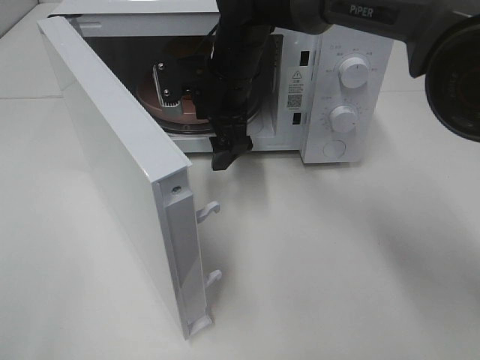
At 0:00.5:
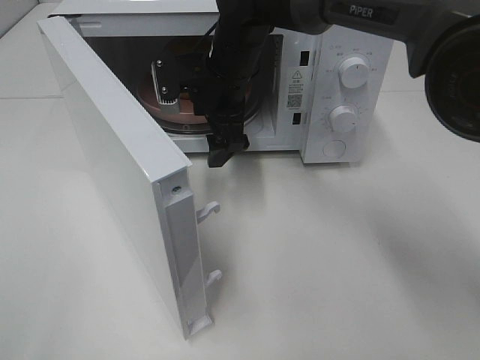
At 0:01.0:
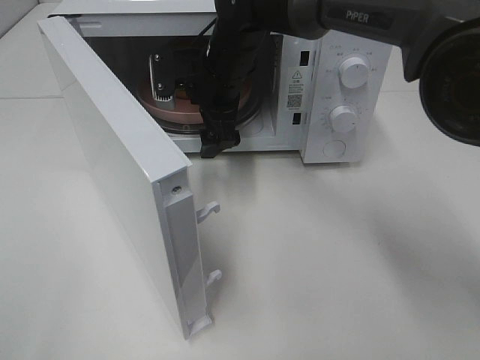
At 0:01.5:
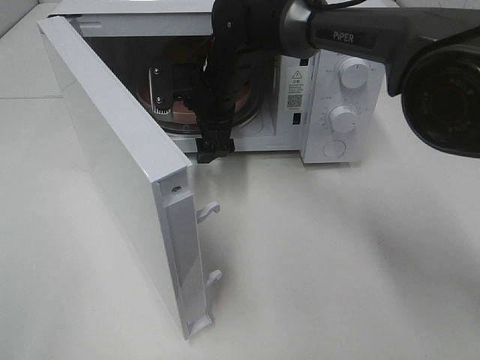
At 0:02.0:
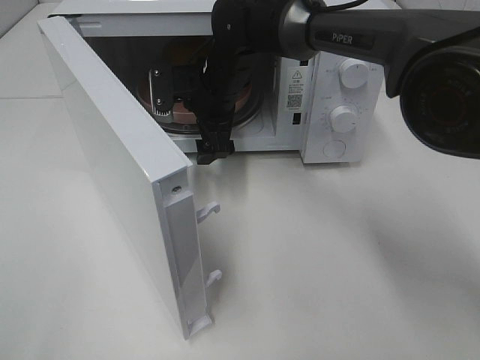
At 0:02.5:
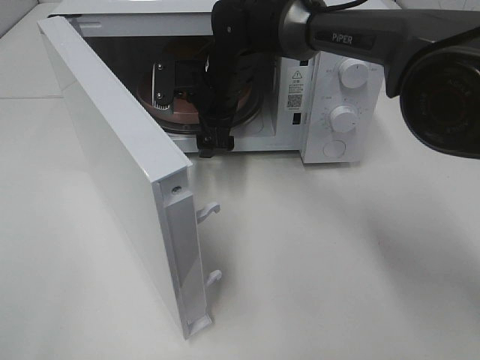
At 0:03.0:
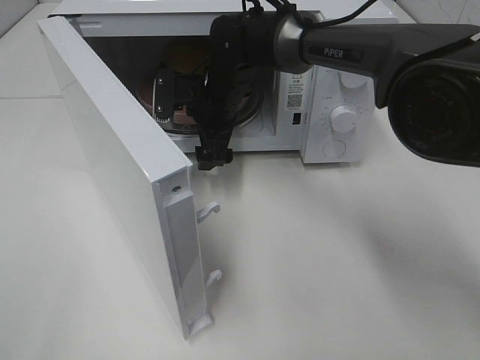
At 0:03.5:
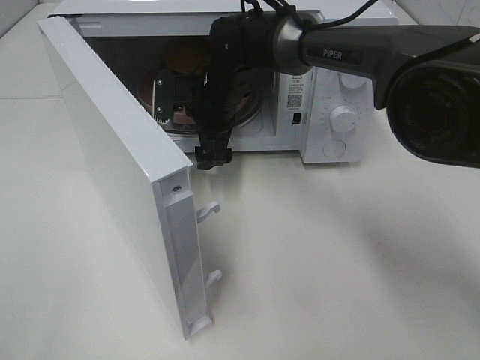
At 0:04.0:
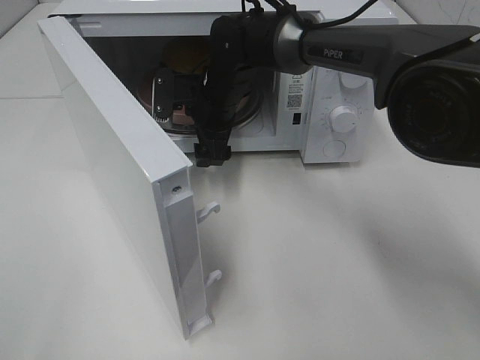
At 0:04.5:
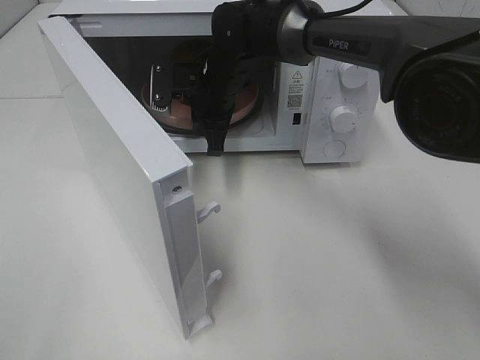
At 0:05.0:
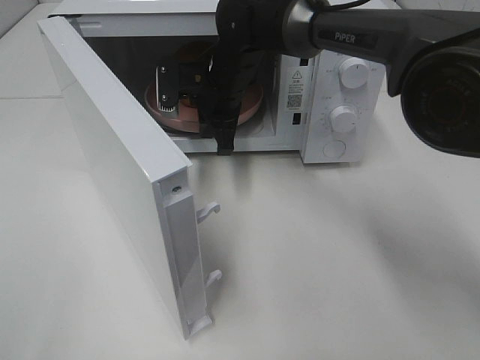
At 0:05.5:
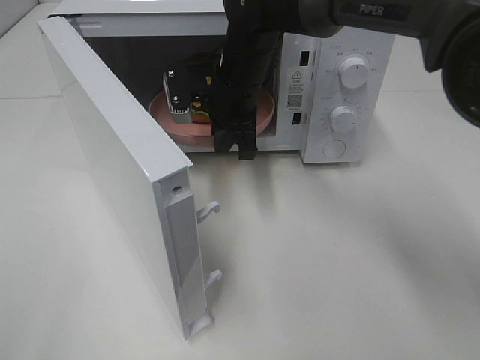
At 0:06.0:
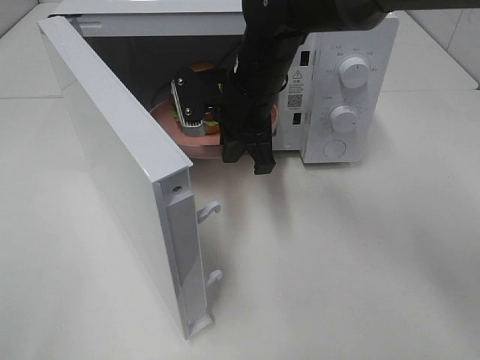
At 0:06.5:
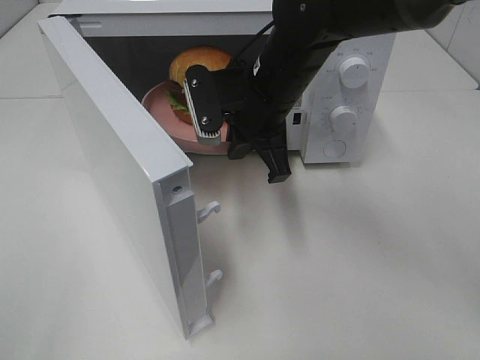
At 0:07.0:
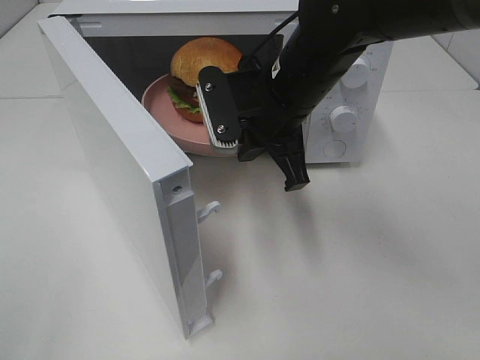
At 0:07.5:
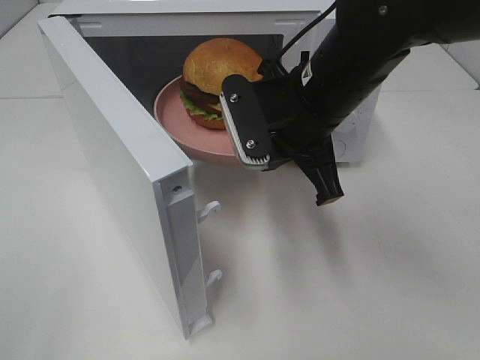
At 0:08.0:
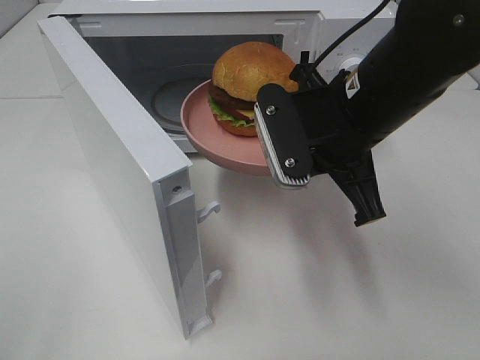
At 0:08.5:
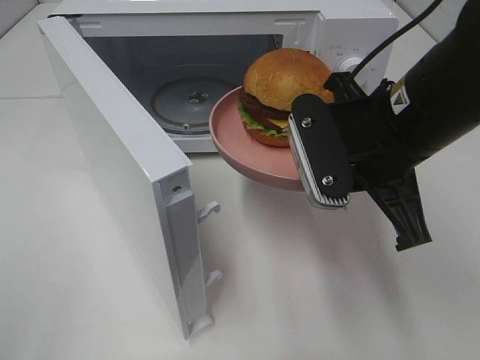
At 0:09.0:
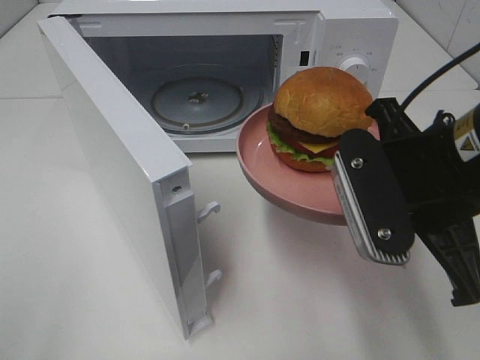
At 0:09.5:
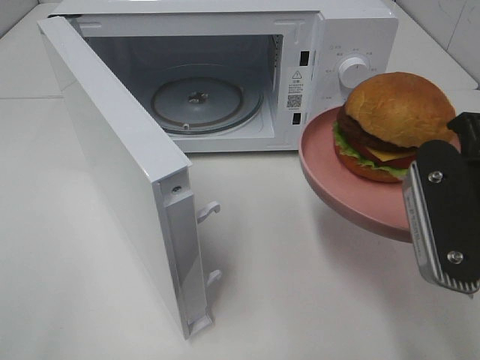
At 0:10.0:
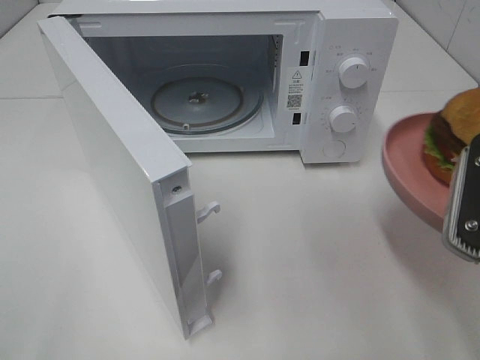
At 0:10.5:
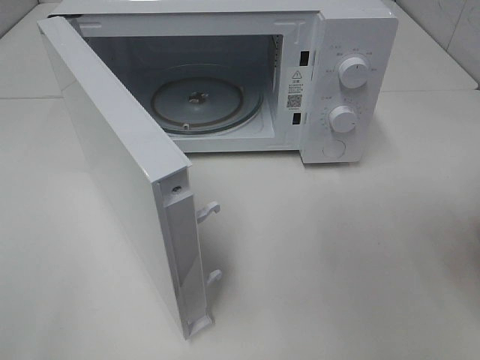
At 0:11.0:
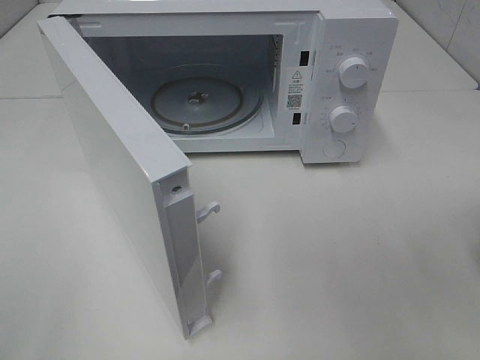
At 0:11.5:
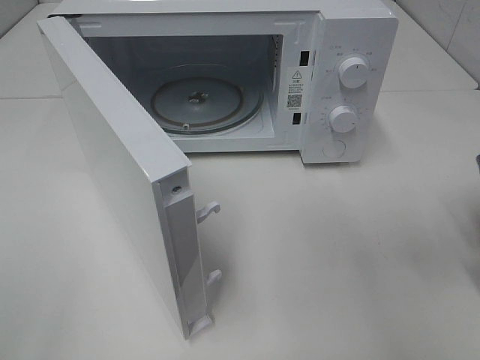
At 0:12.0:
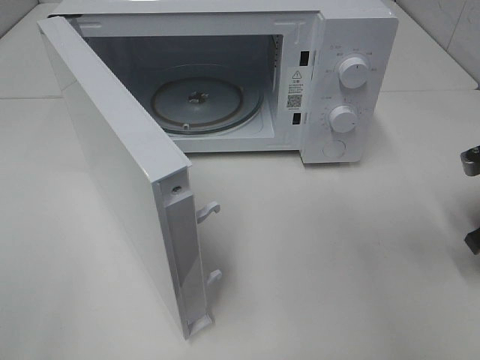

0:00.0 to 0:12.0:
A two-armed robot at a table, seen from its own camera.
Task of the whole recording: Heat the burger.
Step, 0:00.0 to 0:04.0: Right hand: grab the plate with the hamburger.
Step, 0:04.5 to 0:12.0: Right hand: place the plate on the table.
0:00.0 to 0:04.0: The grippers move only a little.
0:04.0 to 0:06.0: The right gripper heads backward and upward, covering some 10 cm, and closes up.
0:06.0 to 0:08.0: The right gripper shifts roughly 15 cm backward and to the right.
0:08.0 to 0:10.0: The right gripper travels to the right and backward by some 15 cm.
0:10.0 to 0:12.0: The right gripper moves forward, downward and to the right, about 20 cm.

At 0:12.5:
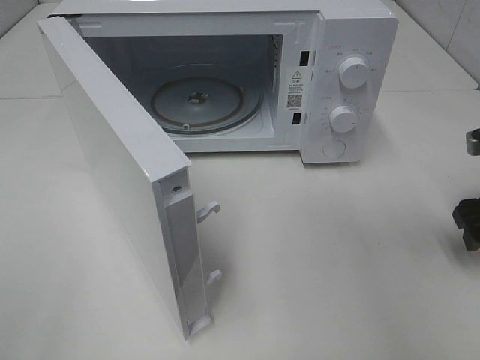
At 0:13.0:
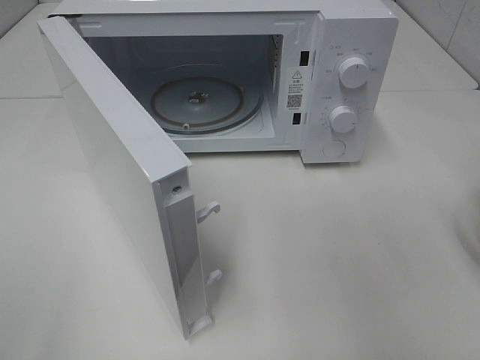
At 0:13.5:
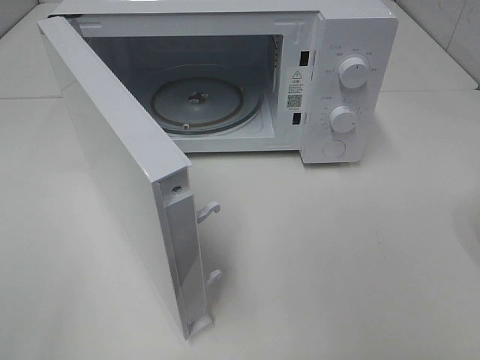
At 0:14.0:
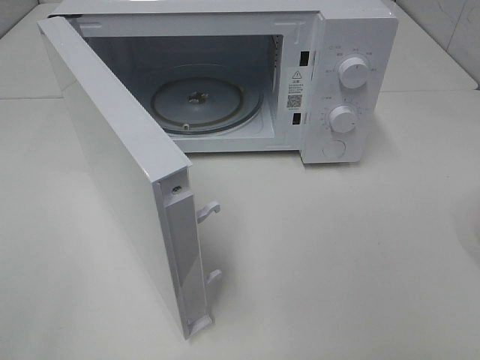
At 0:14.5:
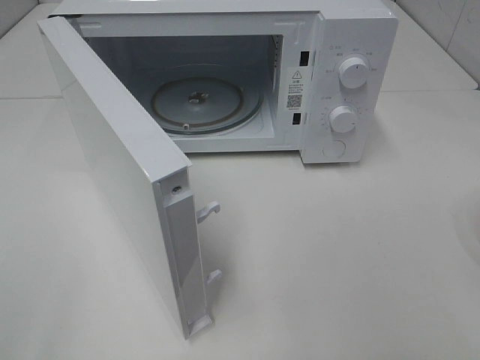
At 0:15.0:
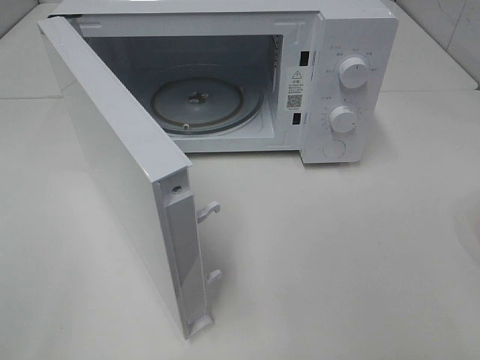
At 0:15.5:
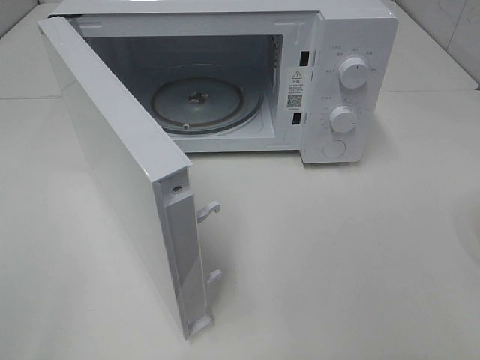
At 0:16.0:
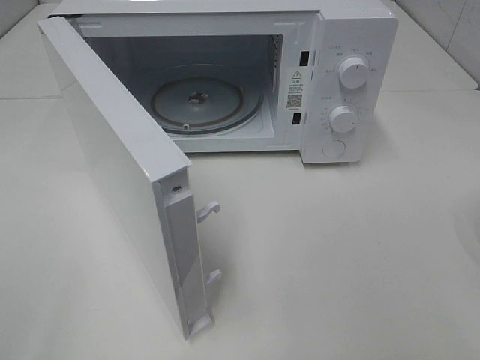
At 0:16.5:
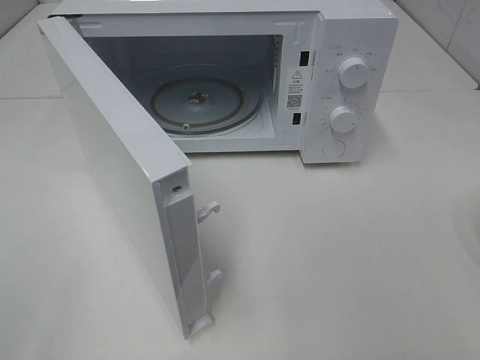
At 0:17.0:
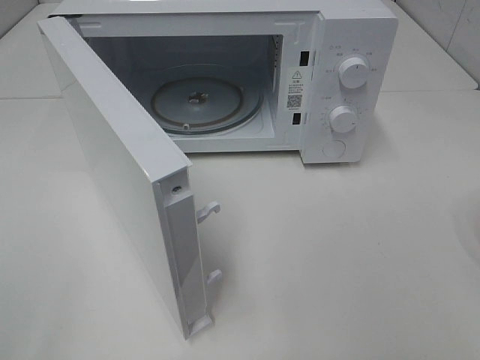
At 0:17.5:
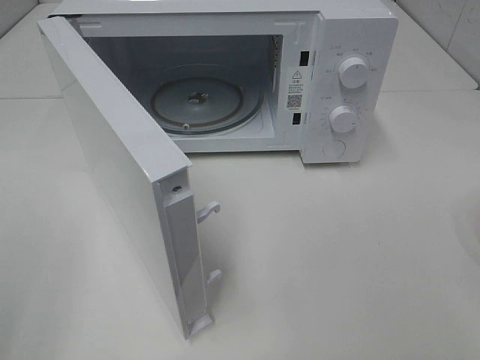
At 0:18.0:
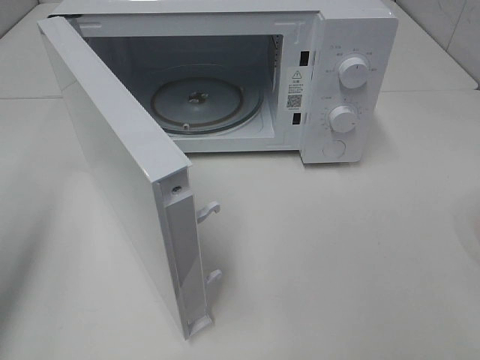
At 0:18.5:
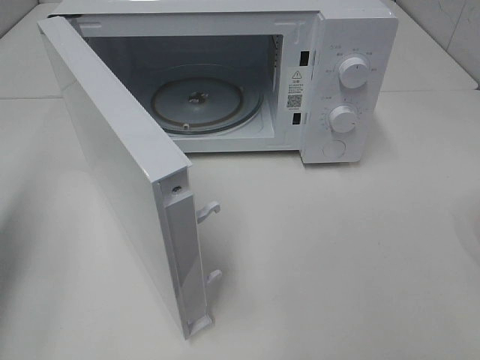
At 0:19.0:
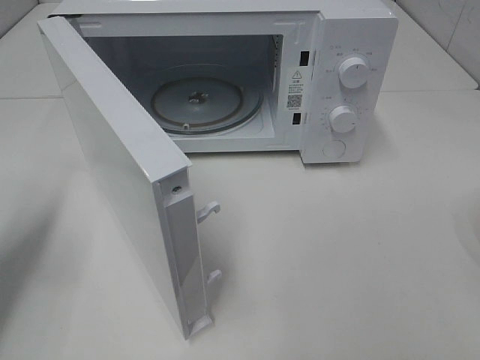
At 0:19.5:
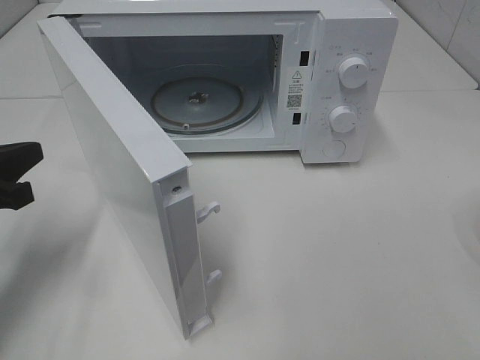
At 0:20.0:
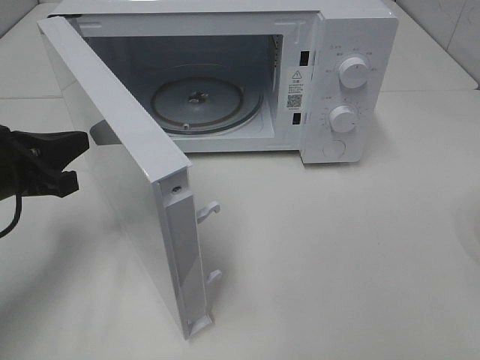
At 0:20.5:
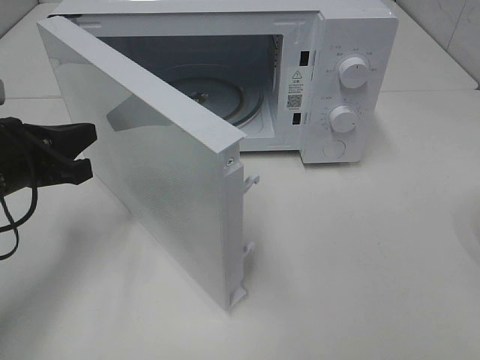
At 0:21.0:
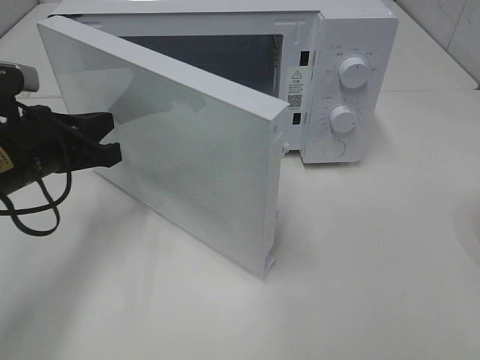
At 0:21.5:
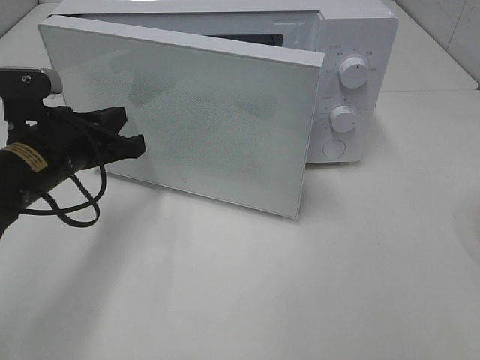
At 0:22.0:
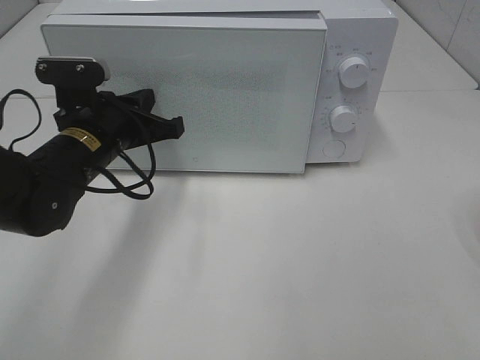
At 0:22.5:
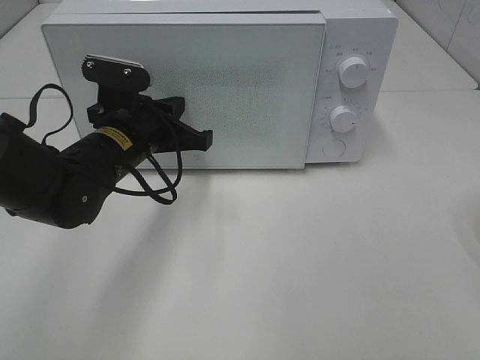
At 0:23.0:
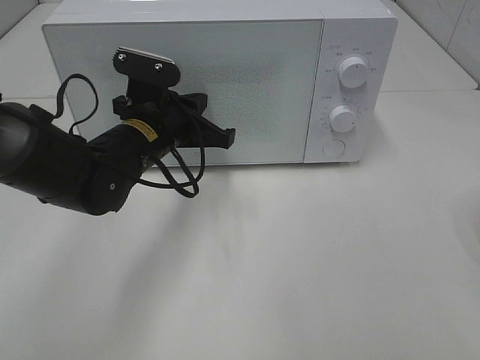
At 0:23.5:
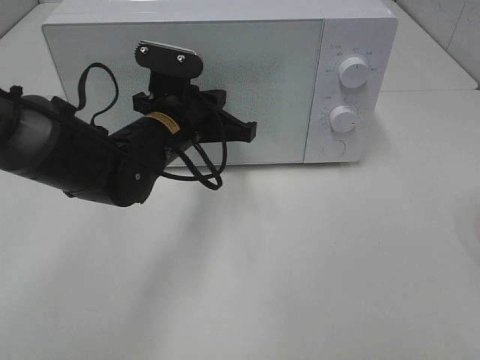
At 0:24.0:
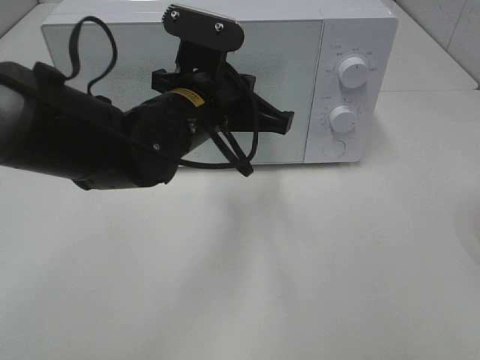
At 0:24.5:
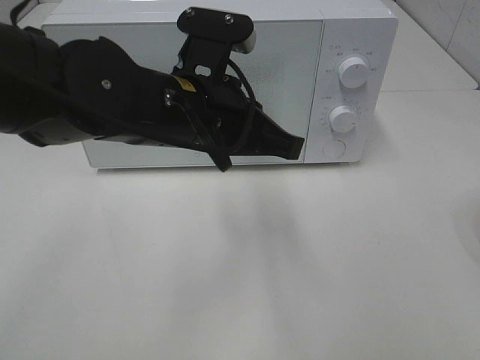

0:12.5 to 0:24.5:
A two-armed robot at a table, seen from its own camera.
Task of the whole recording: Heat the burger.
Step, 0:12.5 to 0:23.0: Left hand: close the microwave door.
0:12.5 to 0:14.5: The right gripper shifts some 30 cm backward and upward.
0:14.5 to 0:16.5: Neither gripper changes place.
0:16.5 to 0:18.5: The left gripper goes some 20 cm forward, and closes.
0:18.5 to 0:20.5: The left gripper goes some 15 cm to the right and downward.
0:20.5 to 0:22.5: The left gripper moves to the right and forward, some 15 cm.
0:22.5 to 0:24.5: The left gripper goes about 15 cm upward, to the right and backward.

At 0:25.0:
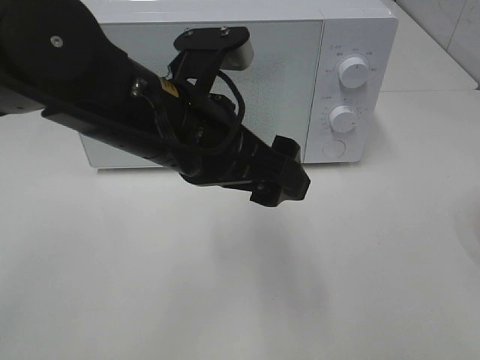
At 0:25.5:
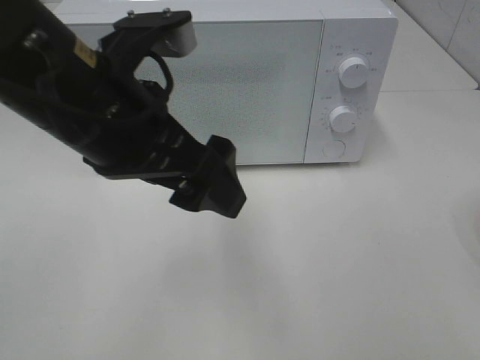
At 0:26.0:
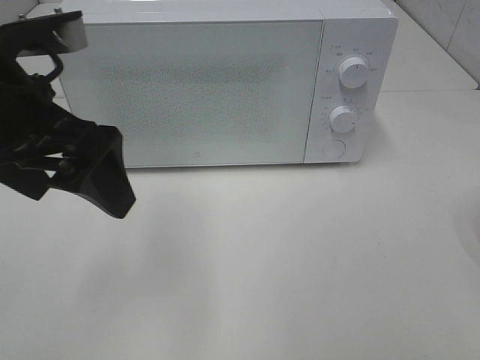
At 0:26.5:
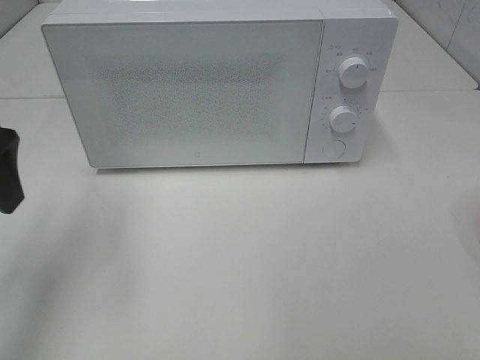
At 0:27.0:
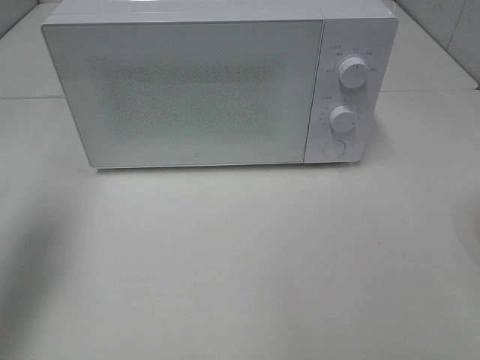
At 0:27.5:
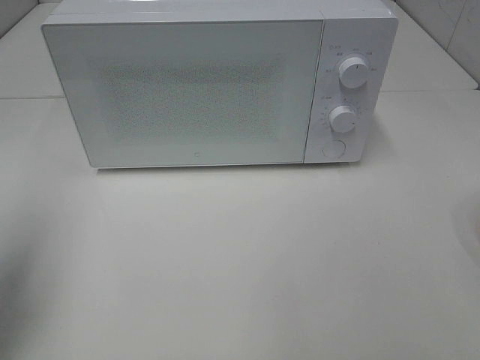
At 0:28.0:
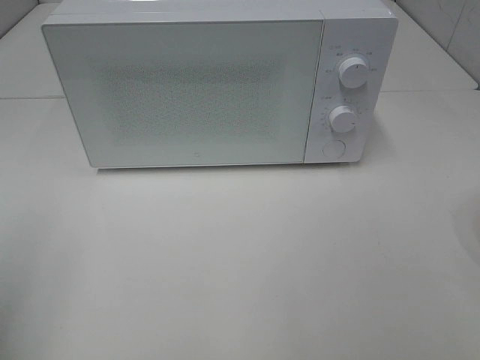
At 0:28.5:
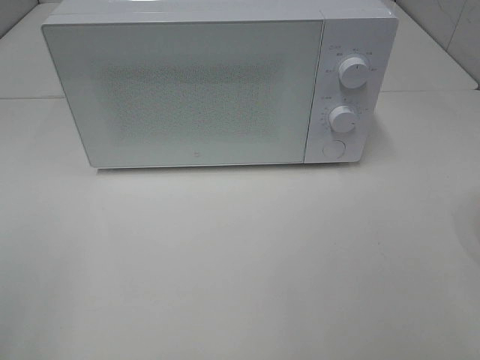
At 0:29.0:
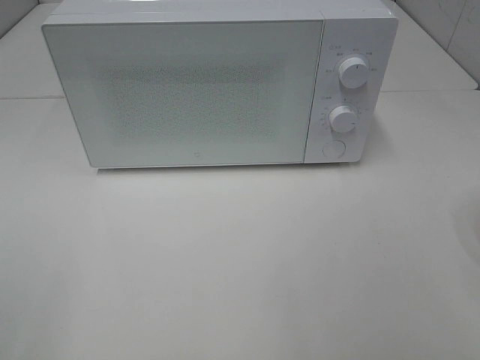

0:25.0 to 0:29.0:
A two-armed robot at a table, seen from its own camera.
Task of the whole recording: Heat the burger.
0:25.0 to 0:27.0: The left gripper shifts approximately 25 cm to the left.
0:27.0 to 0:29.0: The left gripper travels backward by approximately 25 cm.
